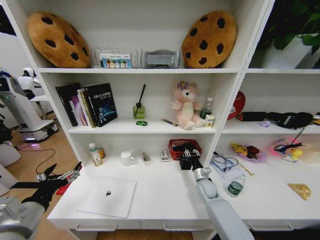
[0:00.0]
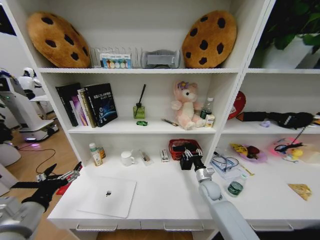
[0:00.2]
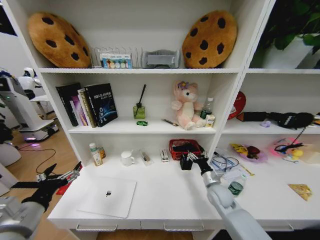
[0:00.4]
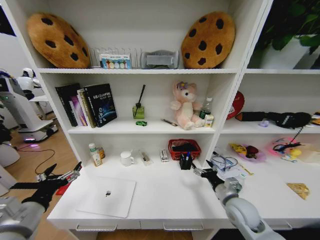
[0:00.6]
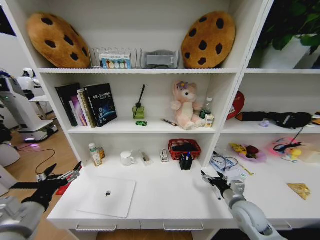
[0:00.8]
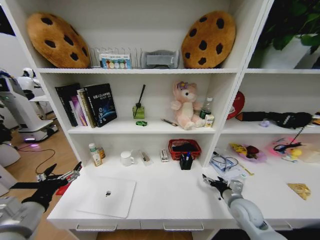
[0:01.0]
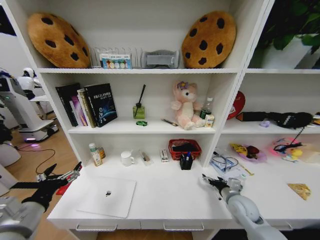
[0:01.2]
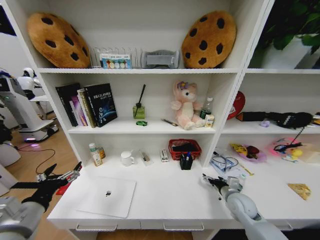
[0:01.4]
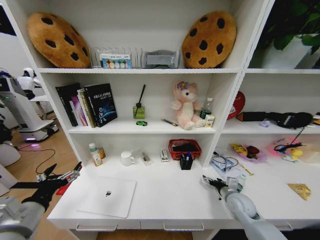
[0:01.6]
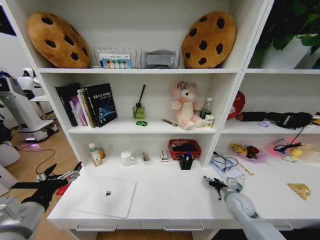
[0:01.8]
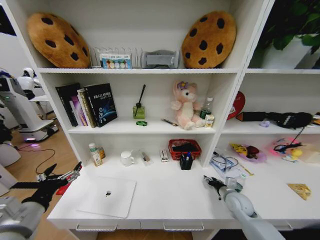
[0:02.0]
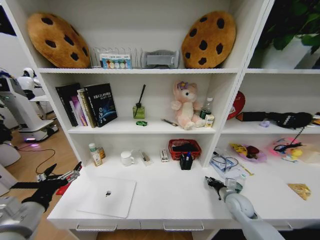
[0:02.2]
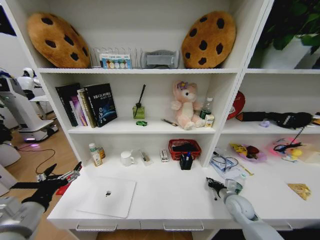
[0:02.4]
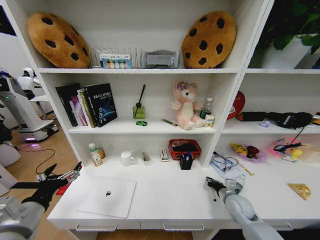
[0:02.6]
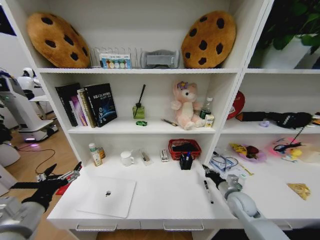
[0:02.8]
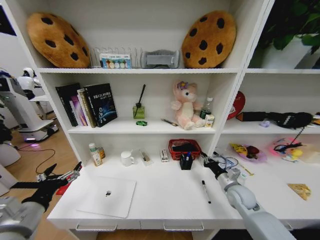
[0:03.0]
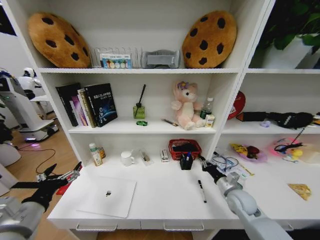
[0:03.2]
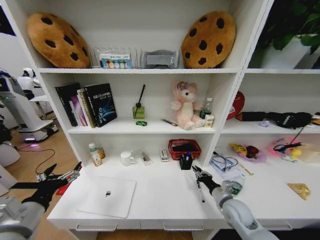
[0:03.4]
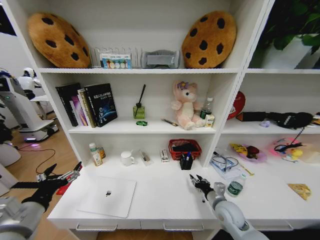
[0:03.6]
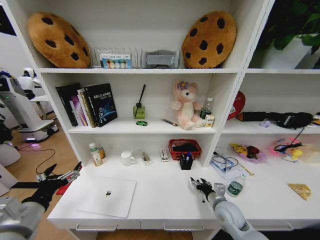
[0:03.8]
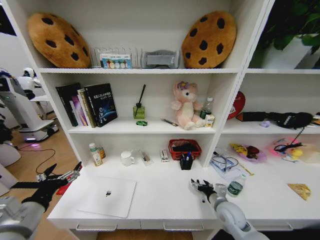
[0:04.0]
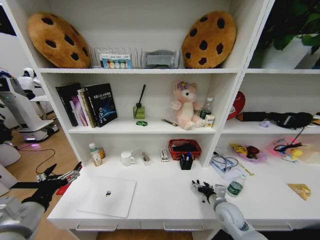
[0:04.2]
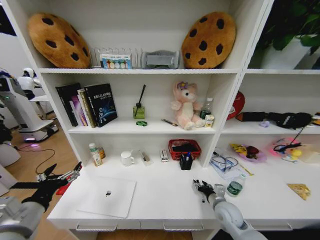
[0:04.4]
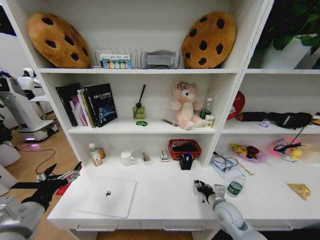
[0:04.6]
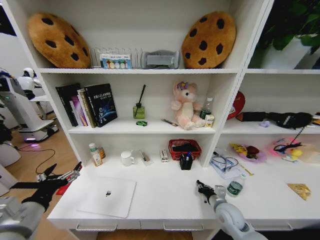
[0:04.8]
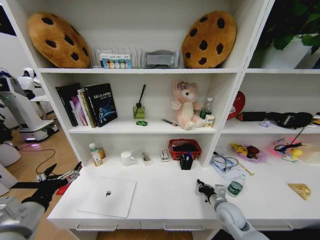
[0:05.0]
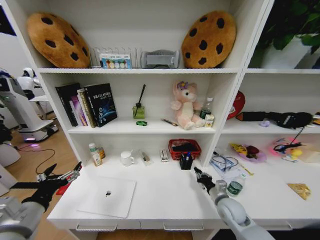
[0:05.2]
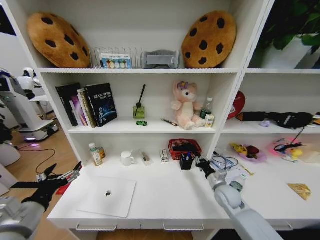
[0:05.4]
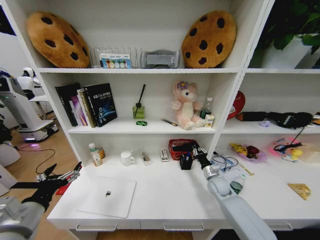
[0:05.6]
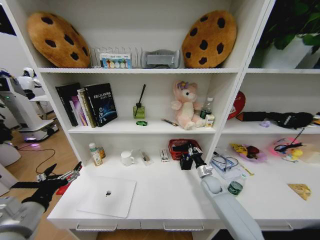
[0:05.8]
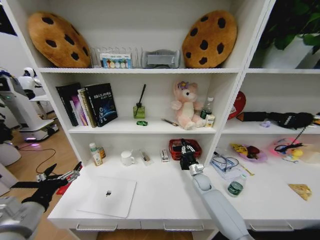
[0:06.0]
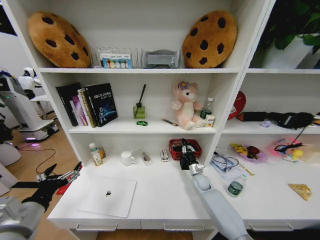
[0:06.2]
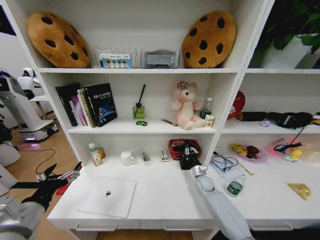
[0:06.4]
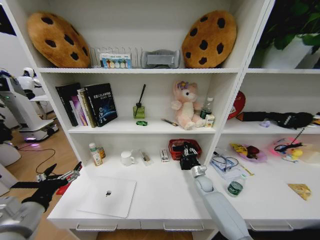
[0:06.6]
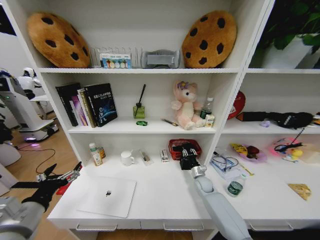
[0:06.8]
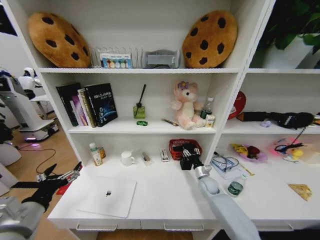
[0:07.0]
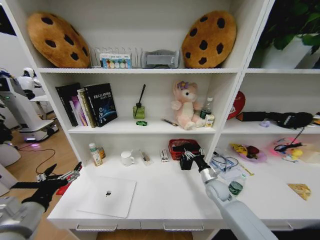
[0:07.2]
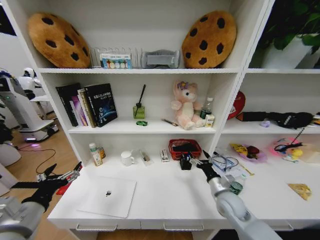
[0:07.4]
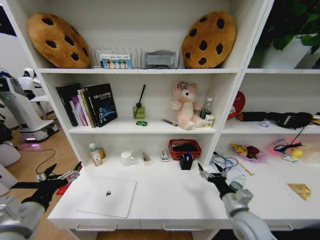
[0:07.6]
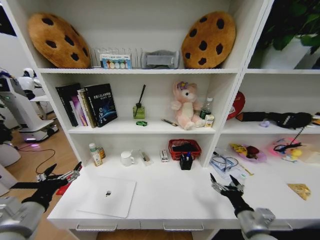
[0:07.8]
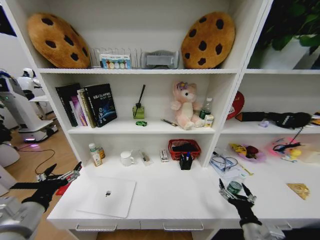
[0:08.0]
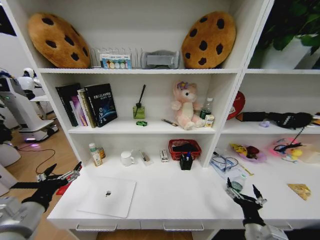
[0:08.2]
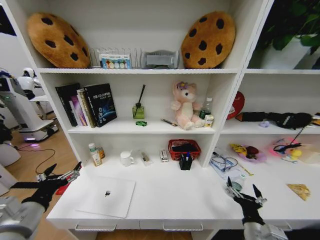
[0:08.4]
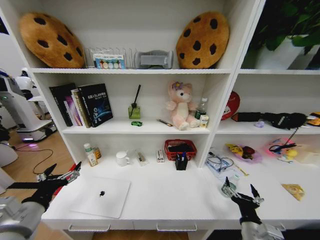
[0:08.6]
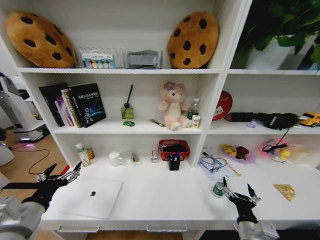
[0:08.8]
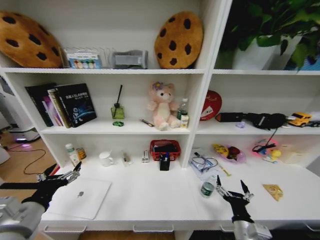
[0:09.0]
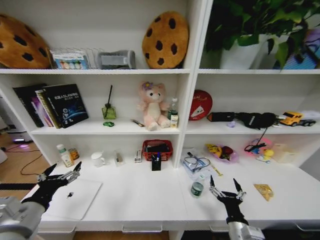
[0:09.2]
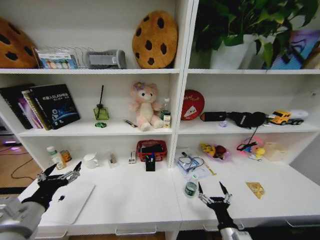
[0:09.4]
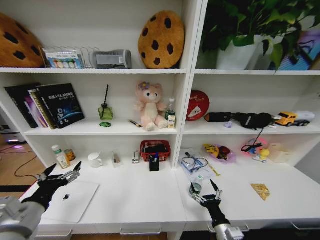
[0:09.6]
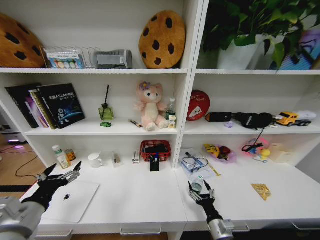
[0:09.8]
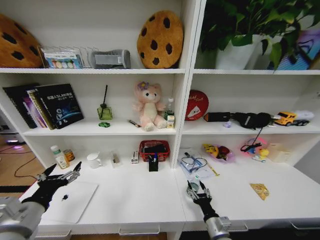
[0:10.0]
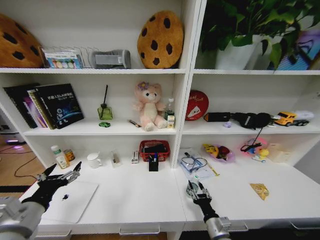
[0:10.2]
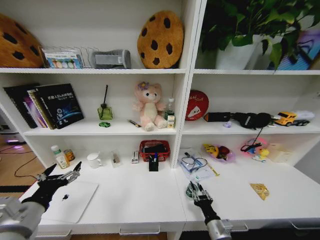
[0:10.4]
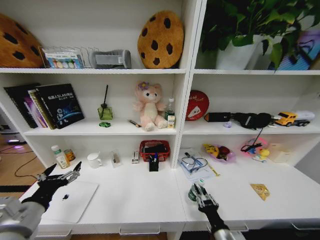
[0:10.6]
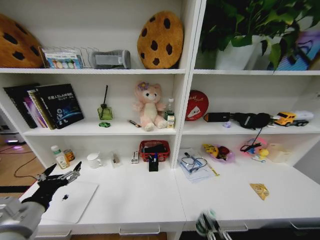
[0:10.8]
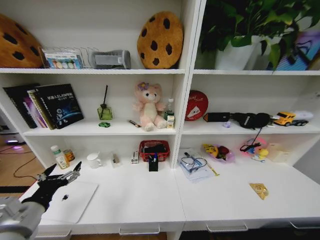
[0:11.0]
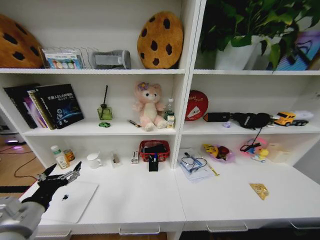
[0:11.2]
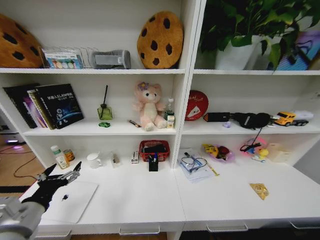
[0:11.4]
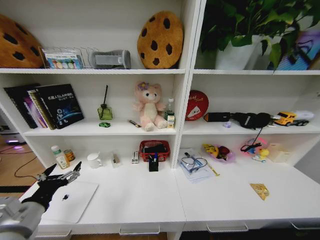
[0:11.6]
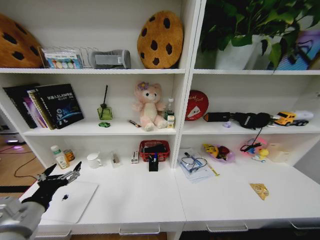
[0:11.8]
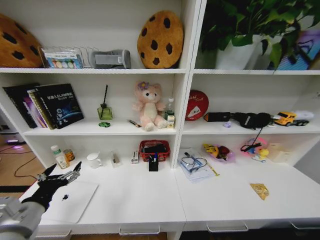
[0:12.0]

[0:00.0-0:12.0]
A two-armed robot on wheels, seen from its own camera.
Task of the whole recording: Organize the objects on the table.
0:00.0 to 0:01.6: The right gripper goes roughly 15 cm backward and to the right, and opens.
0:01.6 to 0:03.0: The right gripper closes its fingers.
0:03.0 to 0:04.4: The right gripper moves to the left, backward and downward, about 10 cm, and opens its fingers.
0:04.4 to 0:06.0: The right gripper is displaced forward by about 15 cm, and closes up.
0:06.0 to 0:07.6: The right gripper heads backward and upward, covering some 25 cm, and opens up.
0:07.6 to 0:09.0: The right gripper is displaced backward by about 5 cm.
0:09.0 to 0:10.4: The right gripper goes about 5 cm downward, and closes.
0:10.4 to 0:12.0: The right gripper travels downward by about 25 cm, and goes backward and returns, approximately 30 cm each way.

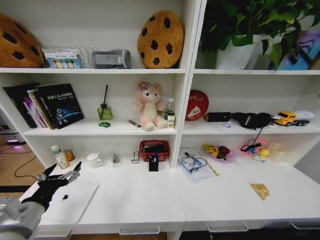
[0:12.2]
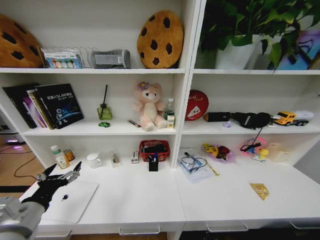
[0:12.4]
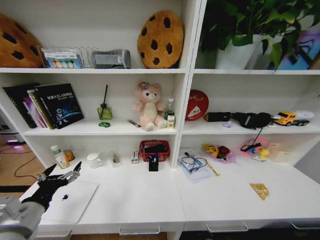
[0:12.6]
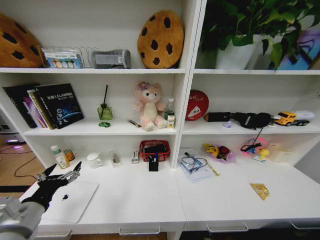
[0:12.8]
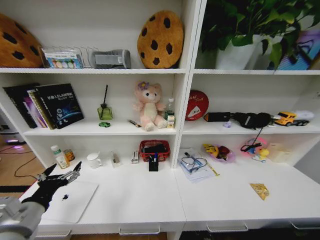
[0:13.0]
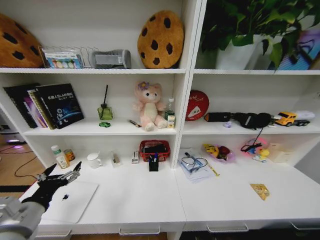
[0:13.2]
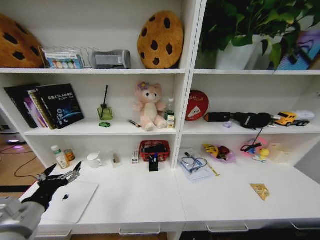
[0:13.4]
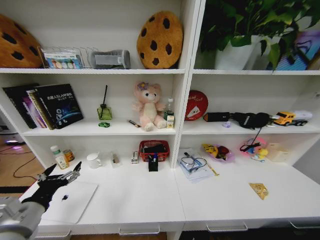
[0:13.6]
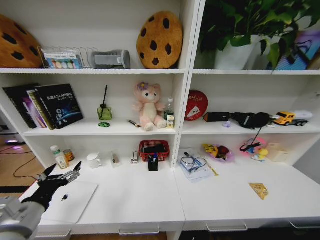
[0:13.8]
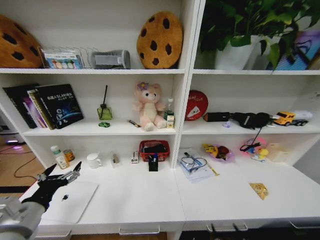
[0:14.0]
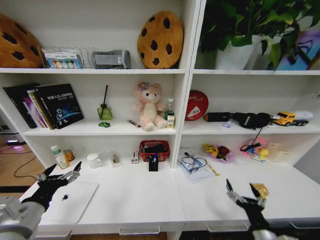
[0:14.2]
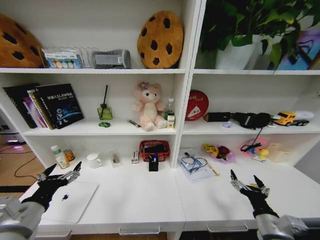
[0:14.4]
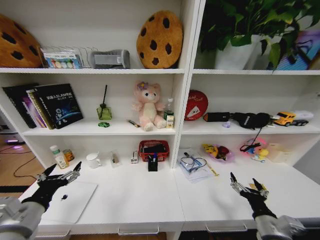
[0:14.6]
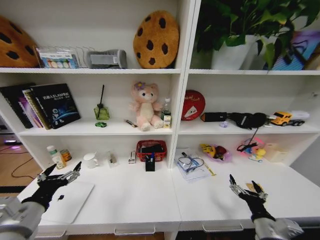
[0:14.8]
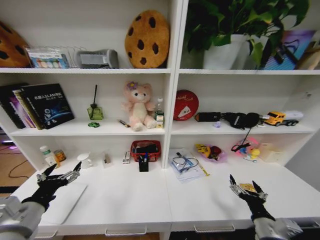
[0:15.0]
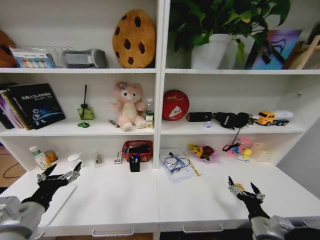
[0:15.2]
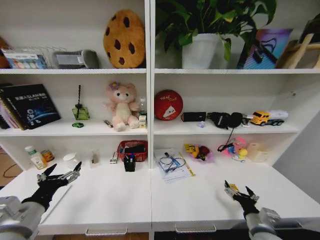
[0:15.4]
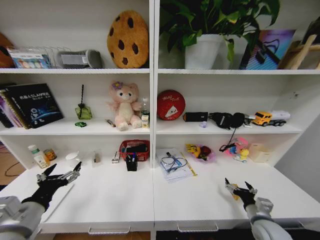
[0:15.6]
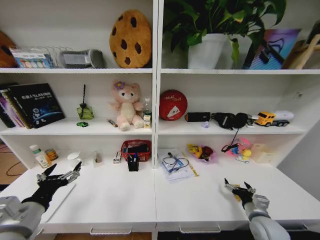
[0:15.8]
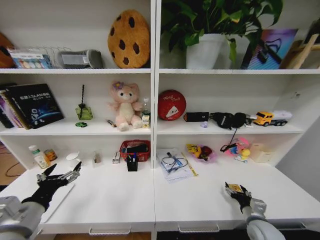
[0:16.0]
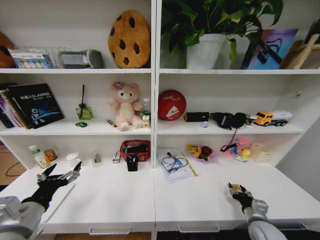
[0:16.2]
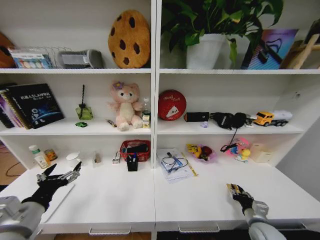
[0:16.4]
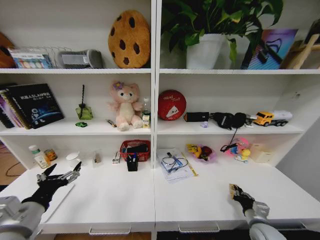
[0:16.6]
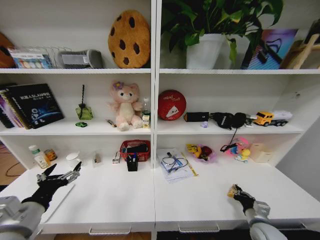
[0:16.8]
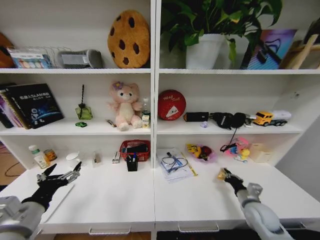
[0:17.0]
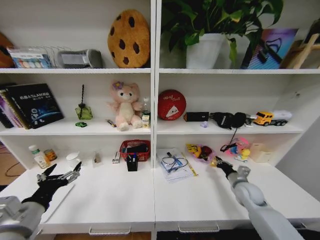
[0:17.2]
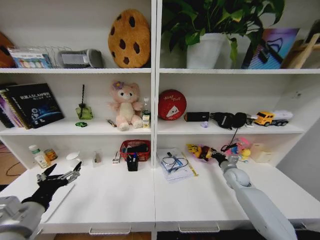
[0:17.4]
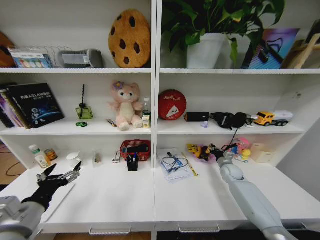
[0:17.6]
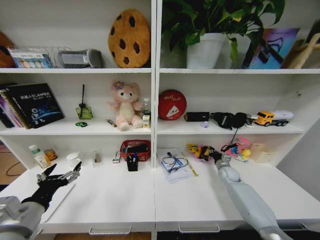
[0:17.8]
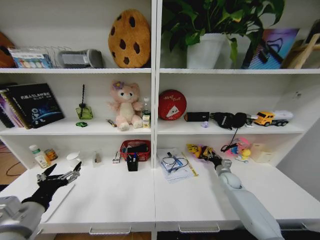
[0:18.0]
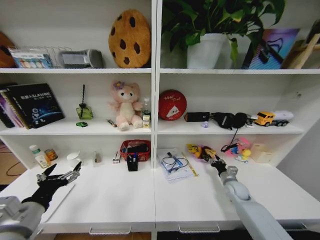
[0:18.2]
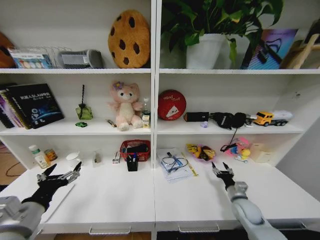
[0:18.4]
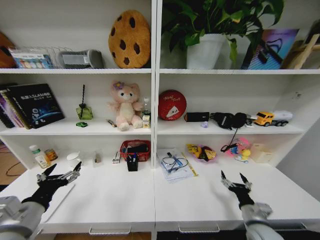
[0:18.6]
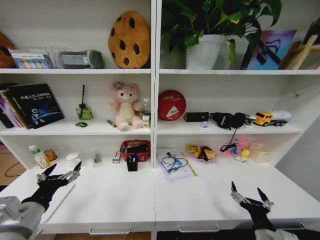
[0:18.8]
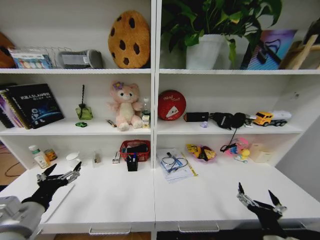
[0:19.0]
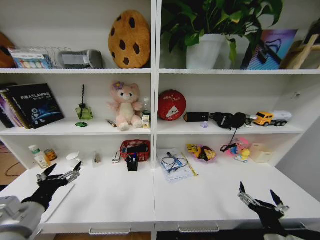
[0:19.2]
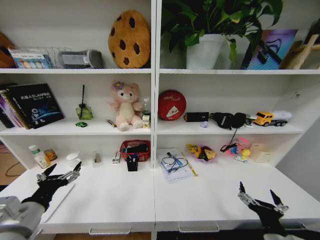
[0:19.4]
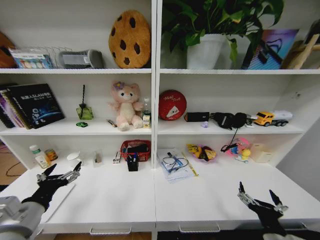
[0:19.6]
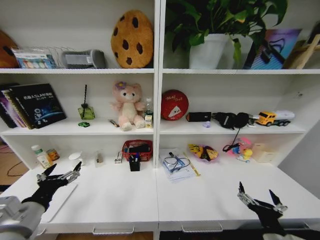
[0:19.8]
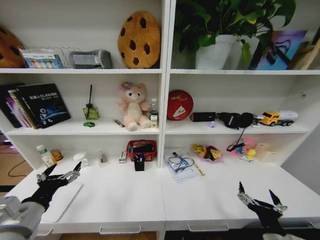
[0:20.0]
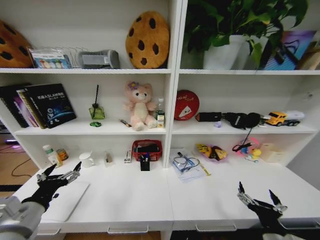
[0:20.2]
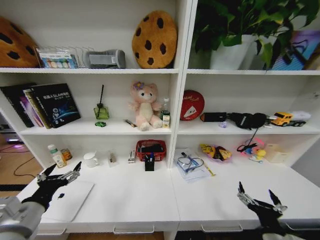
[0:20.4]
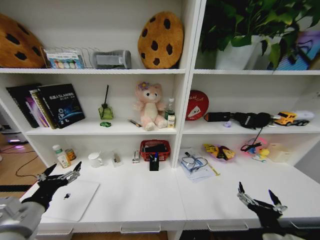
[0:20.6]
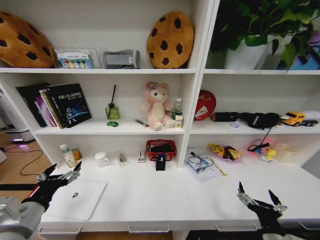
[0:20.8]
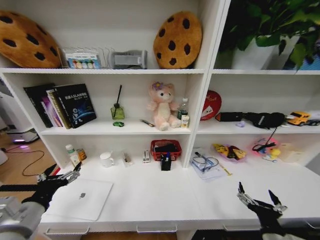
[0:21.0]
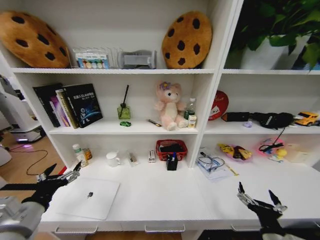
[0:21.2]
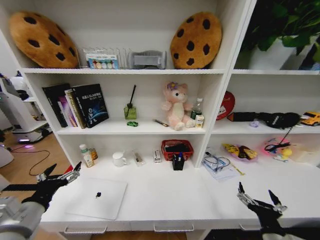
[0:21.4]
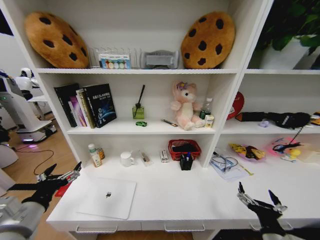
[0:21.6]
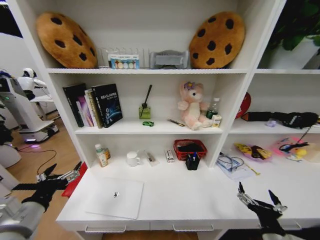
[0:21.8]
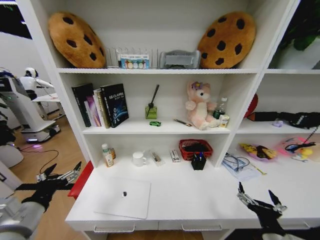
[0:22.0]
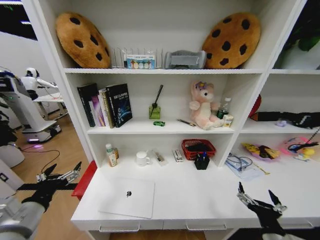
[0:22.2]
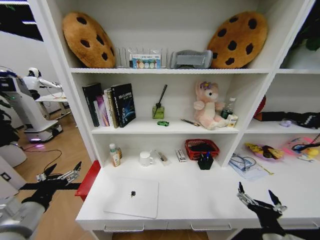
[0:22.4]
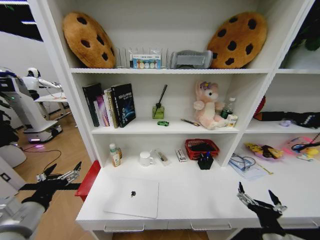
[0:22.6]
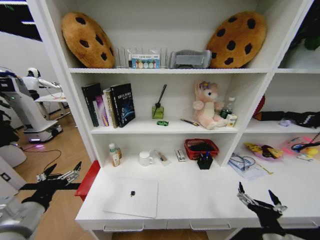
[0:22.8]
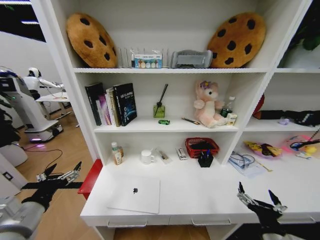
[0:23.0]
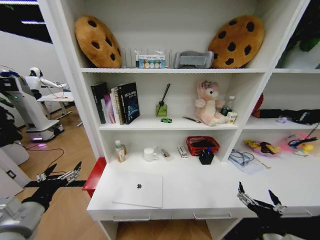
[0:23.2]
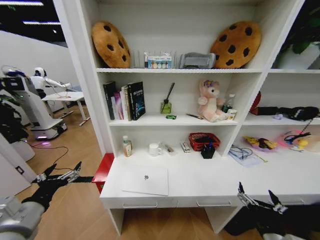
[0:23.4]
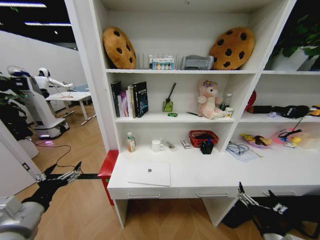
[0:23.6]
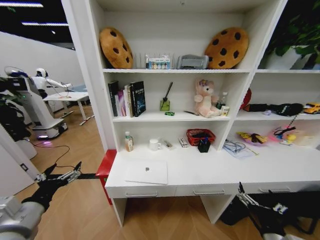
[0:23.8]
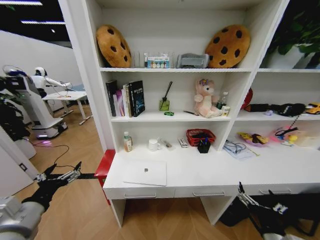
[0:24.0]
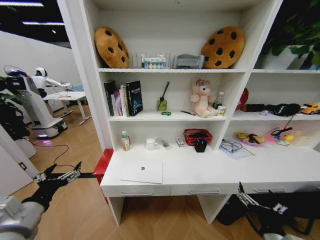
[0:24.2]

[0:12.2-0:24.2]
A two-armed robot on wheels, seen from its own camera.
Task of the whole recording: Organize the objects on the table.
0:12.2 to 0:13.8: The right gripper goes roughly 25 cm backward and upward, and opens up.
0:13.8 to 0:15.2: The right gripper heads forward and upward, covering some 30 cm.
0:15.2 to 0:16.6: The right gripper goes approximately 10 cm downward, forward and to the right, and closes its fingers.
0:16.6 to 0:18.2: The right gripper is displaced forward by about 15 cm.
0:18.2 to 0:19.8: The right gripper moves backward, roughly 25 cm, and opens up.
